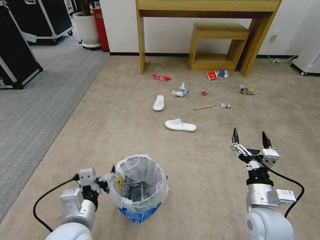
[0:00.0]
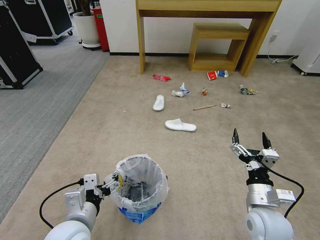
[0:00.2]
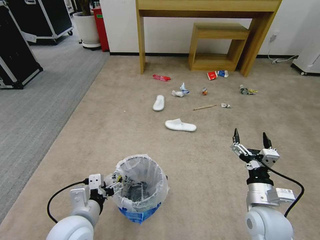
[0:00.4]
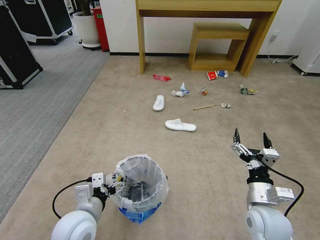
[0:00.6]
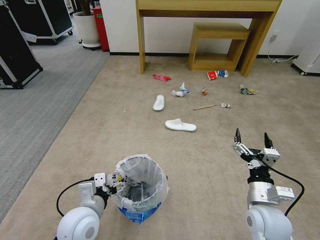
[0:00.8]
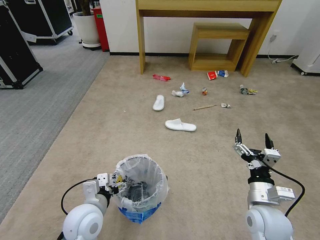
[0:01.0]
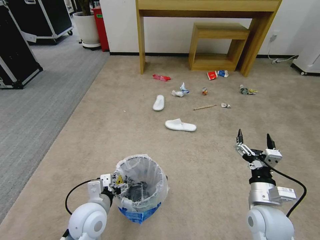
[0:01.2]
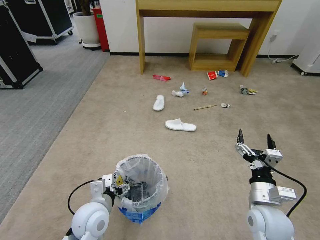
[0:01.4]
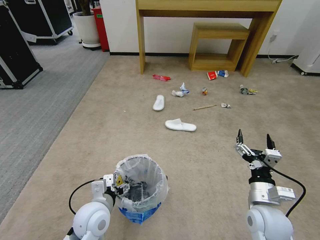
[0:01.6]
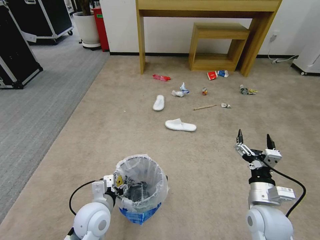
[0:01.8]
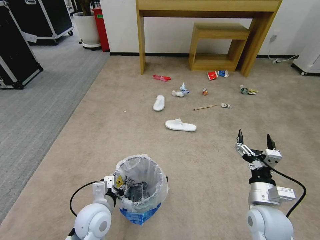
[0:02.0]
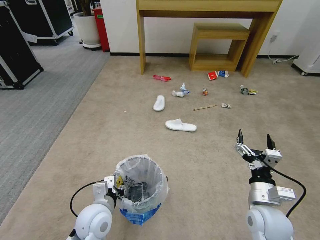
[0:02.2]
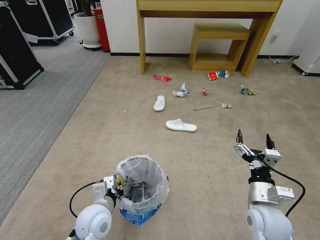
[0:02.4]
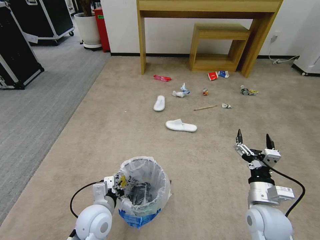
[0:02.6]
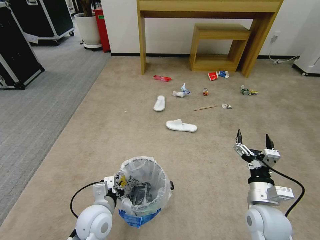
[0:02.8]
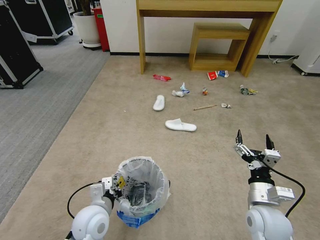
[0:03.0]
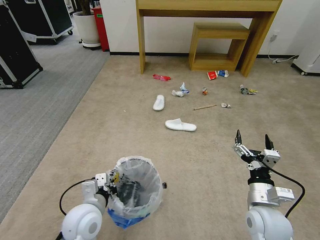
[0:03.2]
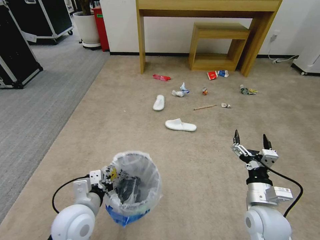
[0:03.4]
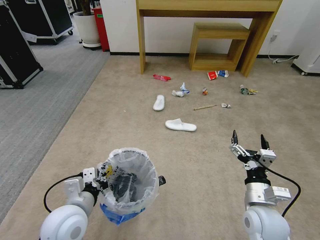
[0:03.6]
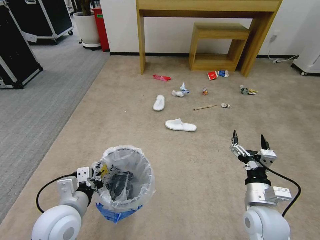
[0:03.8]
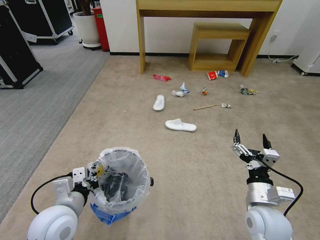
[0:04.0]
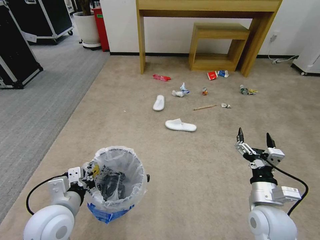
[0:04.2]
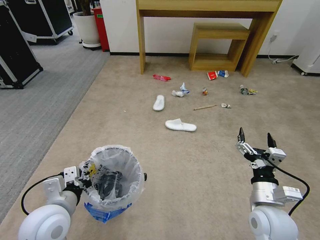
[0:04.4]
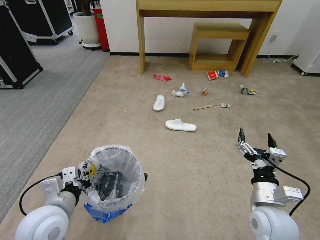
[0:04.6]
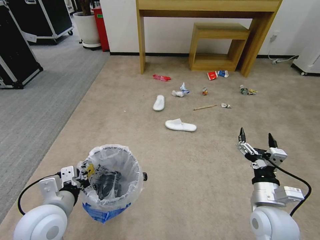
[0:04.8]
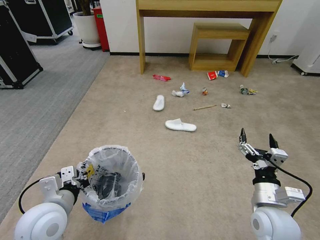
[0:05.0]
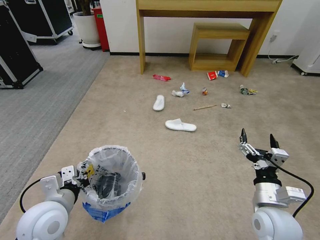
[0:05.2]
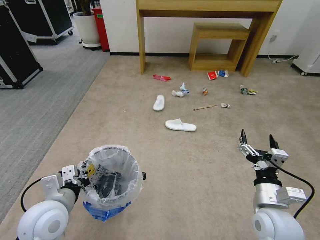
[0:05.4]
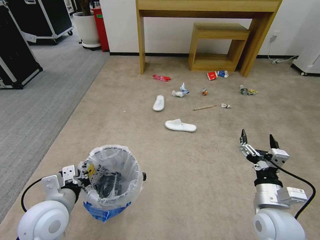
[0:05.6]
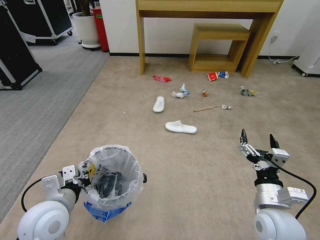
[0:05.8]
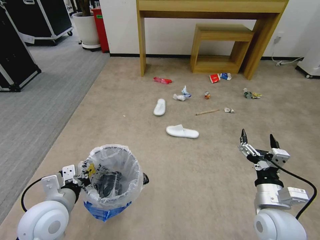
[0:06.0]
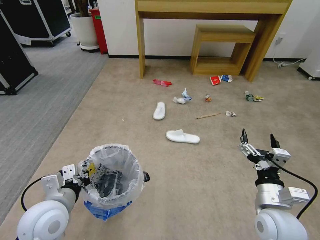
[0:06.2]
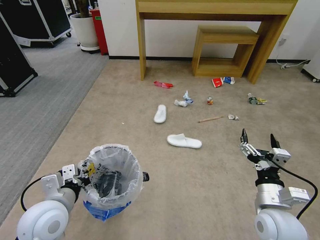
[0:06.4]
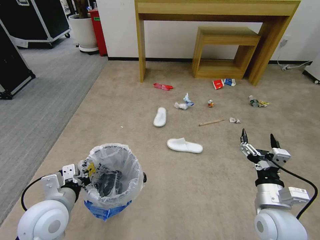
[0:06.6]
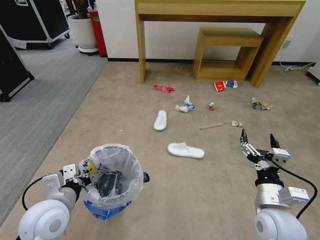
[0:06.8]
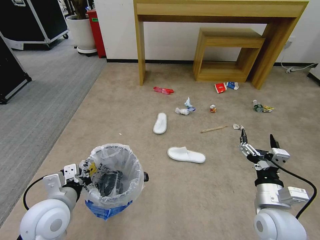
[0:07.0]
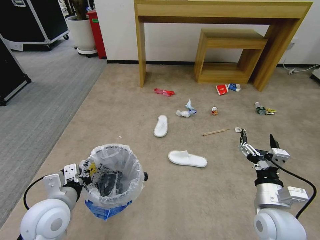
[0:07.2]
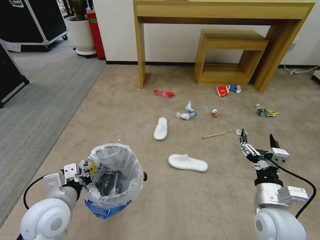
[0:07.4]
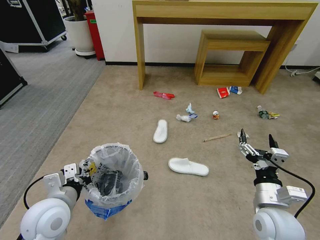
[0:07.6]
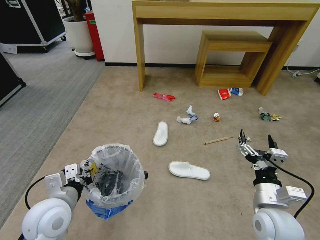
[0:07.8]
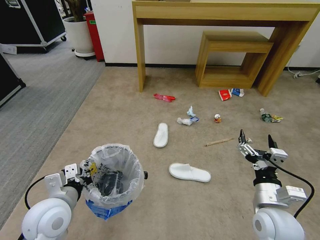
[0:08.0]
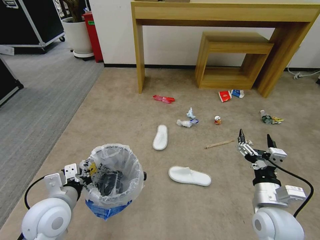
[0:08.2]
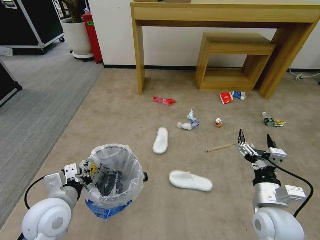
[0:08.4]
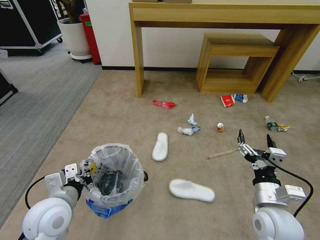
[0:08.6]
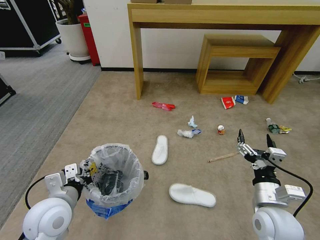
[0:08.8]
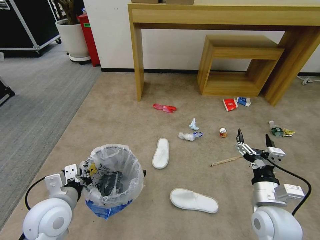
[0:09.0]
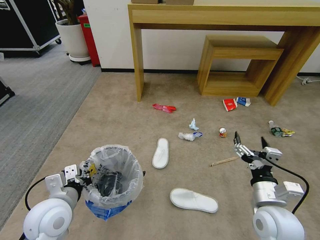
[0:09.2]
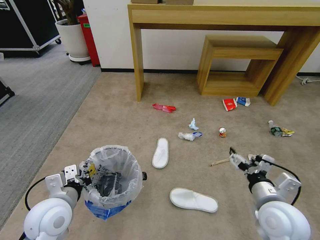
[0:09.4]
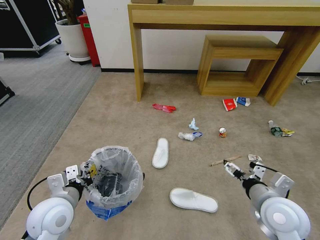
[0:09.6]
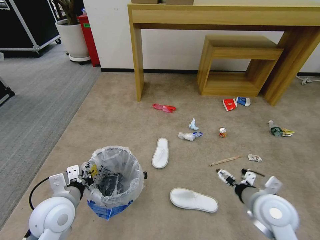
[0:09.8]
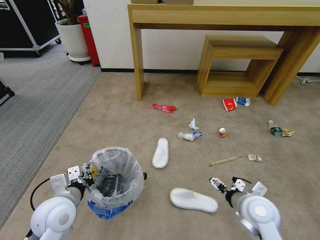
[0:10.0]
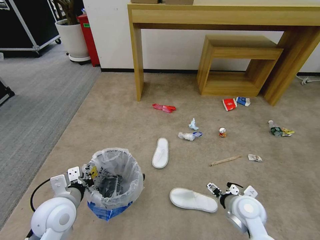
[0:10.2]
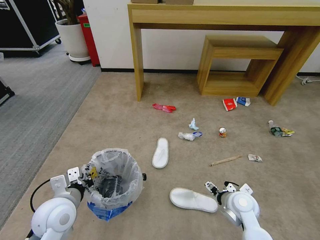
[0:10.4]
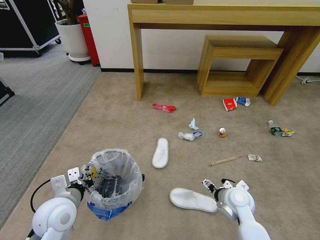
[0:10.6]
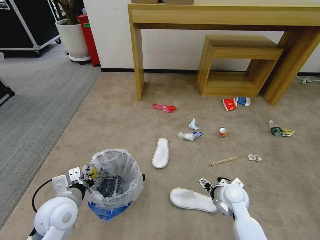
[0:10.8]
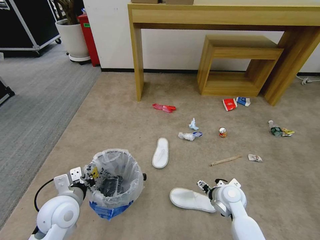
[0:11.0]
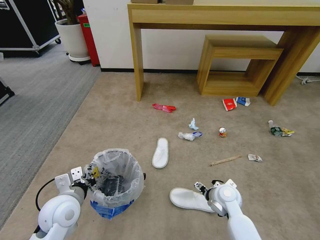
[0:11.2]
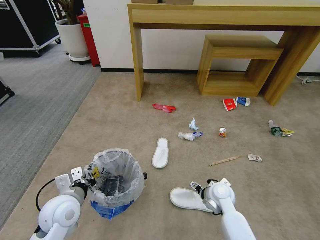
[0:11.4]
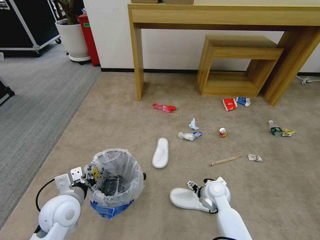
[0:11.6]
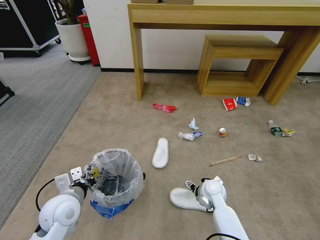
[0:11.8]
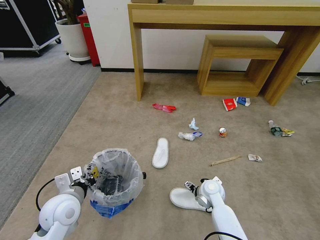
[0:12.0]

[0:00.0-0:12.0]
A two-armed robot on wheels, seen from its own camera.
Task of the whole recording: Pick up the trash bin and place the garbage on the floor into it.
0:00.0 to 0:01.6: The left gripper moves forward and downward, some 10 cm.
0:01.6 to 0:03.0: The left gripper closes its fingers.
0:03.0 to 0:04.4: The left gripper travels upward and to the left by roughly 10 cm.
0:04.4 to 0:06.0: The grippers move only a little.
0:09.0 to 0:10.4: The right gripper is displaced downward and forward by approximately 10 cm.
0:10.4 to 0:12.0: The right gripper shifts some 10 cm forward, to the left and downward.

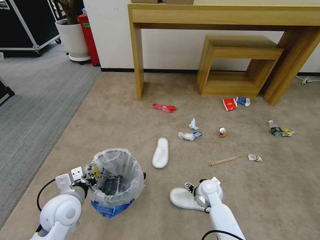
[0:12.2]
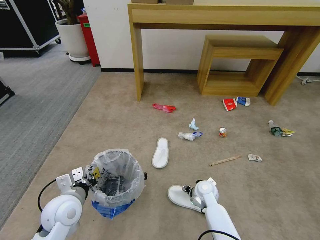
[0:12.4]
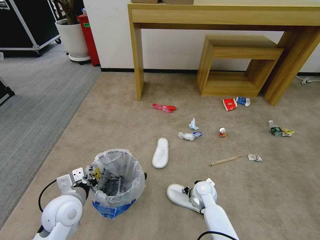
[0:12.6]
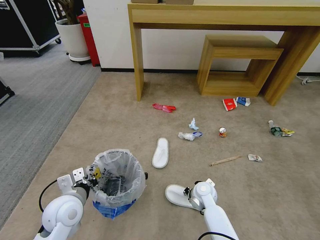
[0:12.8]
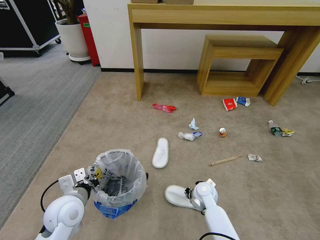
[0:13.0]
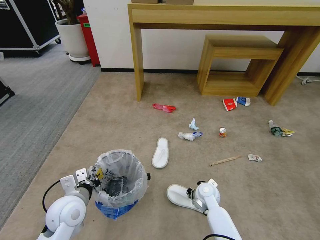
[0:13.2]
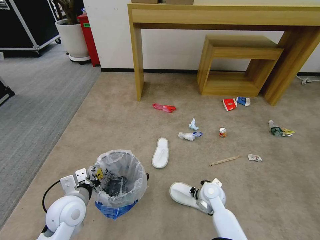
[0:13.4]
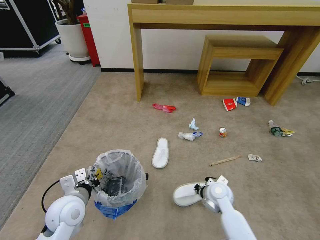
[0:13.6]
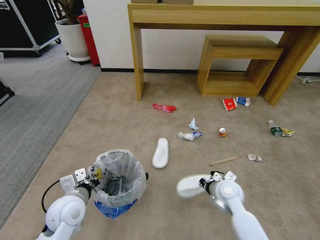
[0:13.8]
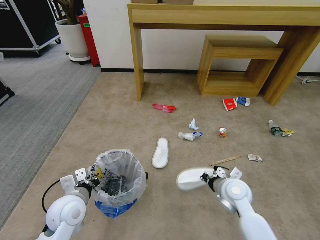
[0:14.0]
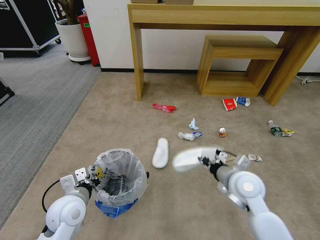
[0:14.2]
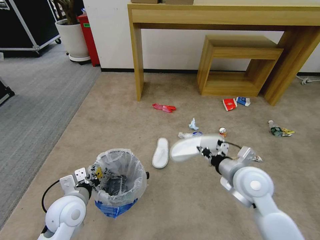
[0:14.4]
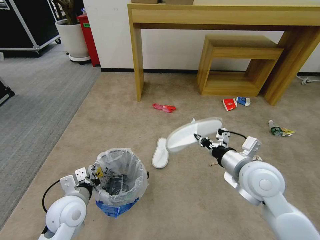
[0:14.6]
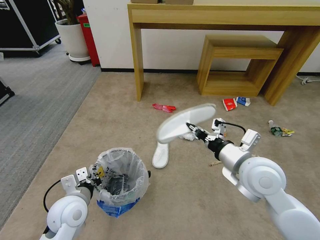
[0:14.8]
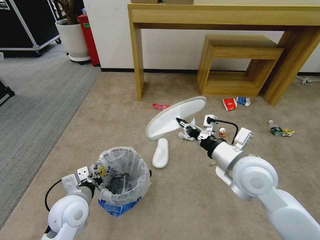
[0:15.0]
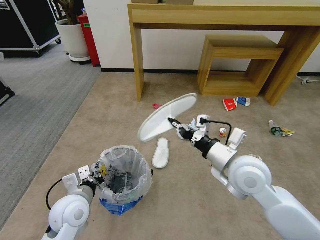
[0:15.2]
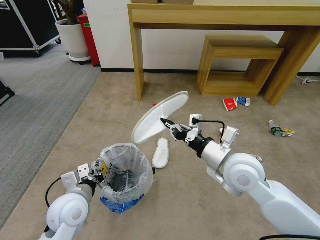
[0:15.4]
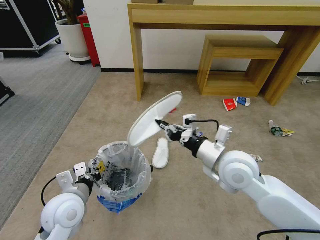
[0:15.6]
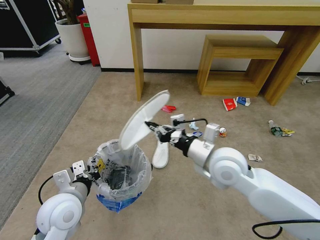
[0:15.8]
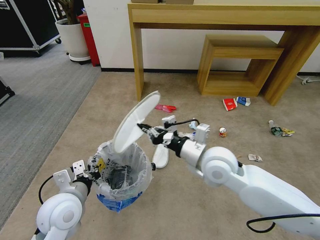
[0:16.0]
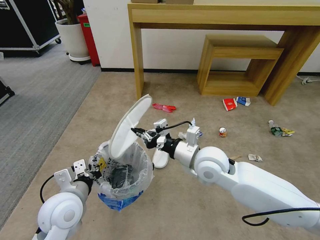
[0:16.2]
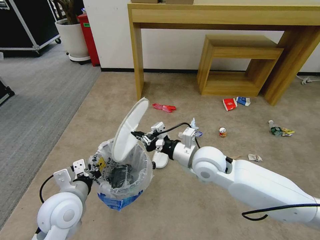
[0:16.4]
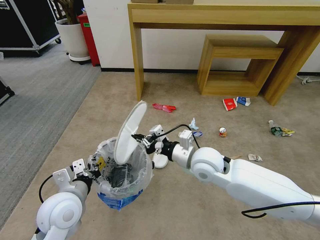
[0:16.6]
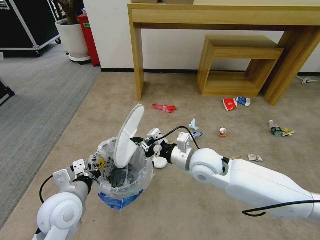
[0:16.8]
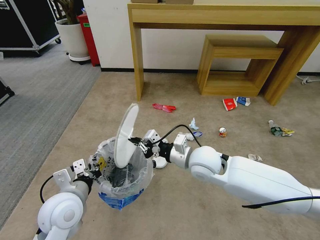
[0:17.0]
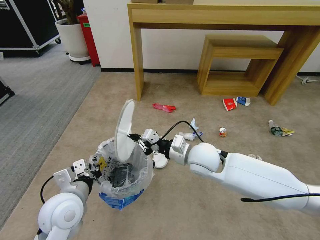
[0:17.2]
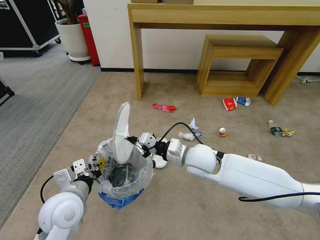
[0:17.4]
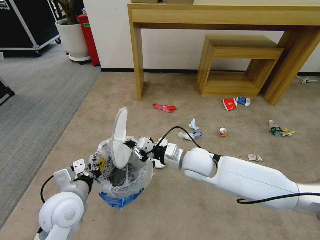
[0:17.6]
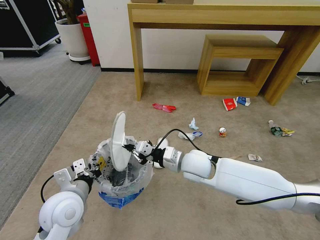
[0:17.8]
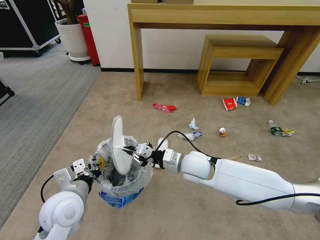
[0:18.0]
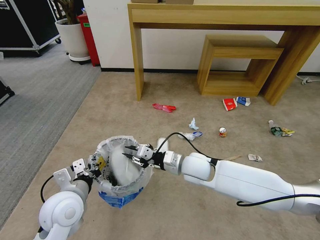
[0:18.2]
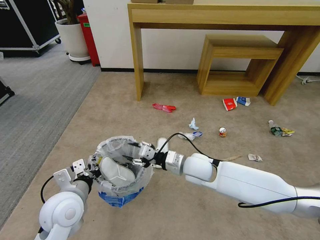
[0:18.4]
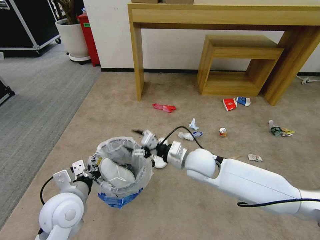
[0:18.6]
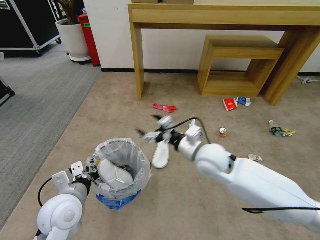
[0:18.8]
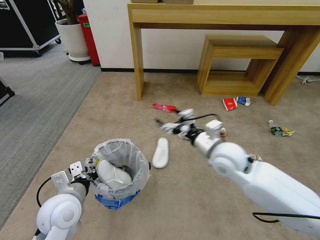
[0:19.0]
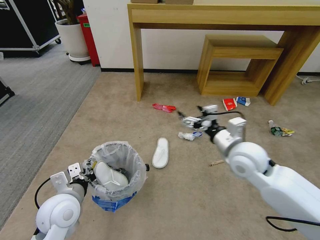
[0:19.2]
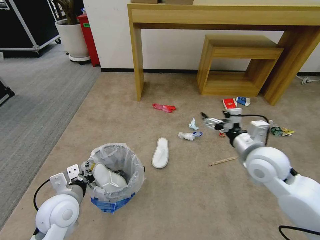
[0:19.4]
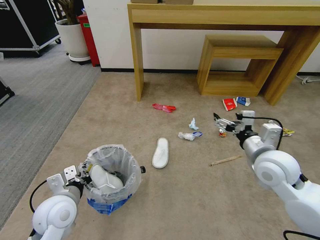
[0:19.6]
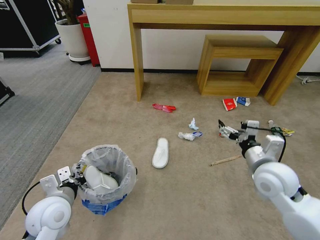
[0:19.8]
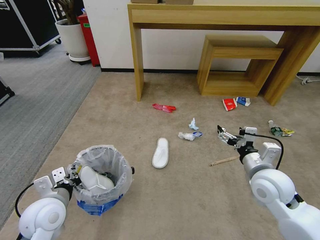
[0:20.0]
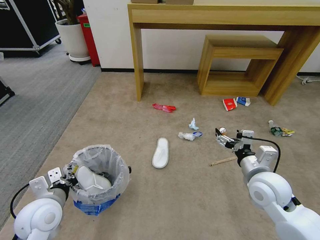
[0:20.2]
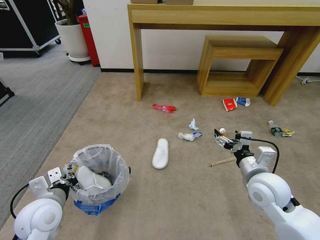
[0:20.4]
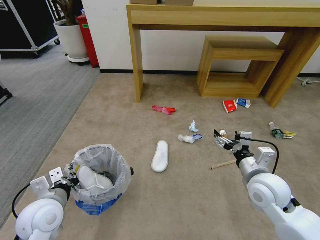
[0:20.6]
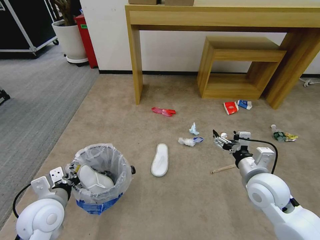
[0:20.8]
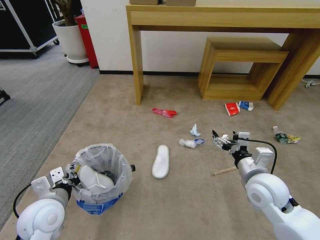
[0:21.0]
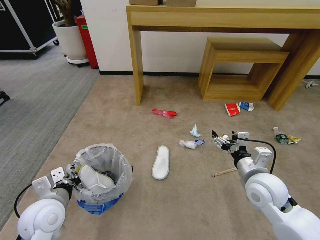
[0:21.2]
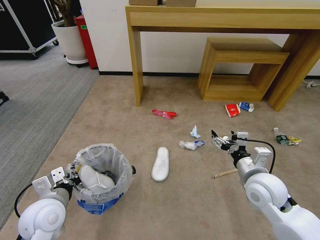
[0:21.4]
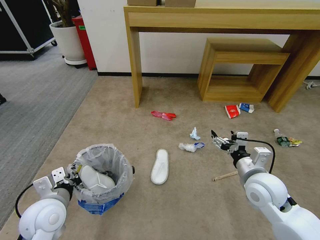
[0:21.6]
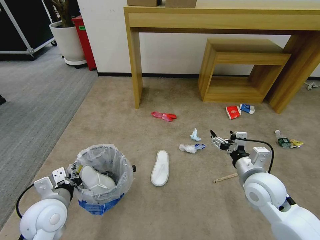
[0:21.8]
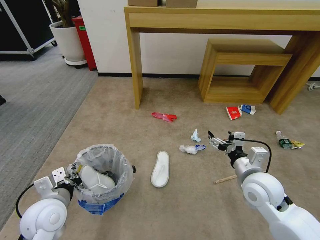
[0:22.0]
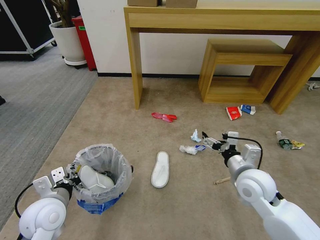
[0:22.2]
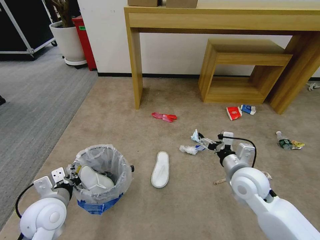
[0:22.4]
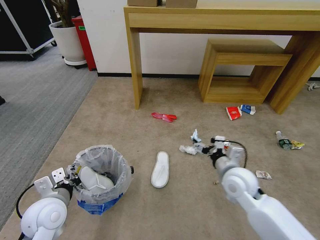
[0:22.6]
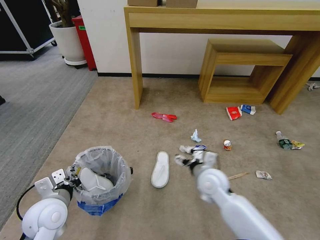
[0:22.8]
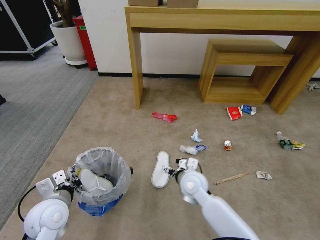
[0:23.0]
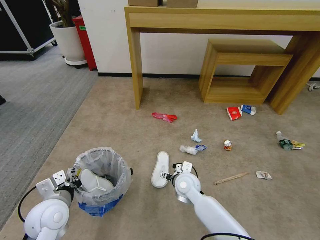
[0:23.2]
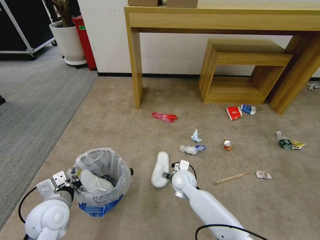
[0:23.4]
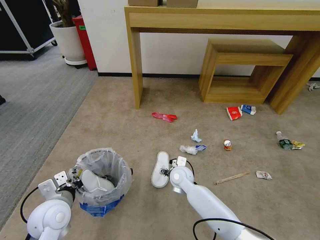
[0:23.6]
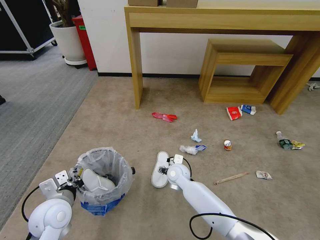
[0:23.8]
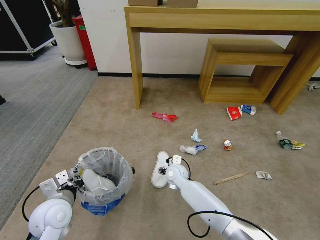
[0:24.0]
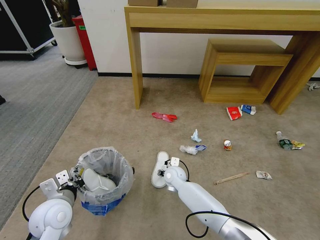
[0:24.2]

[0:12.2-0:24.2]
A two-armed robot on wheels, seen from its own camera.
Task of the whole recording: Pick up the trash bin and place the garbage on the floor into it.
0:12.2 to 0:13.8: The right gripper is displaced upward by some 5 cm, and closes up.
0:13.8 to 0:15.2: The right gripper moves upward, about 20 cm.
0:15.2 to 0:16.6: The right gripper goes roughly 10 cm to the left and forward.
0:16.6 to 0:18.2: The right gripper moves downward, roughly 5 cm.
0:18.2 to 0:19.8: The right gripper goes roughly 20 cm to the right, and opens.
0:21.2 to 0:22.6: The right gripper ends up some 5 cm from where it was.
0:22.6 to 0:24.2: The right gripper shifts roughly 25 cm to the left, downward and forward.
